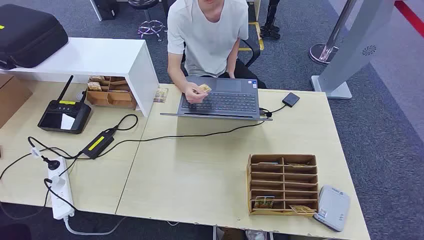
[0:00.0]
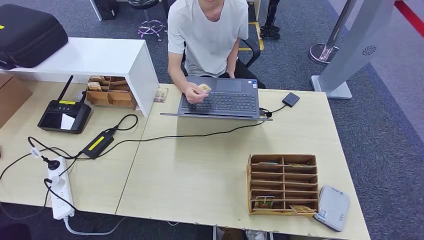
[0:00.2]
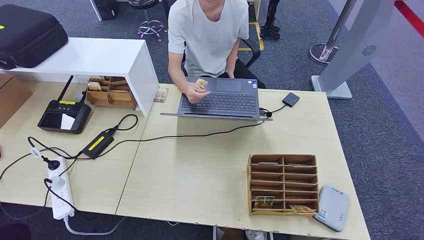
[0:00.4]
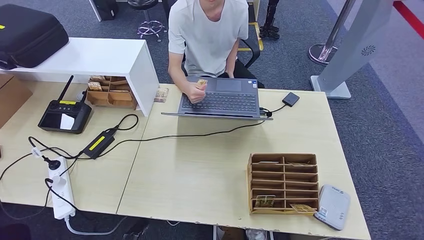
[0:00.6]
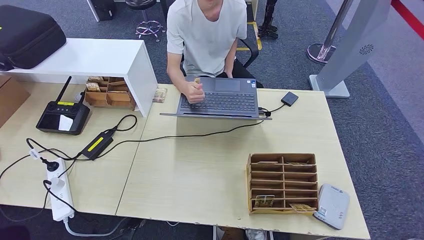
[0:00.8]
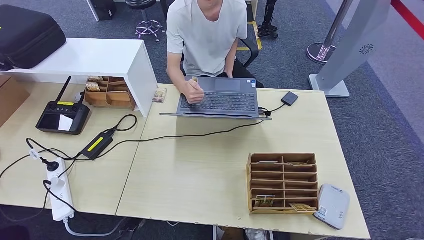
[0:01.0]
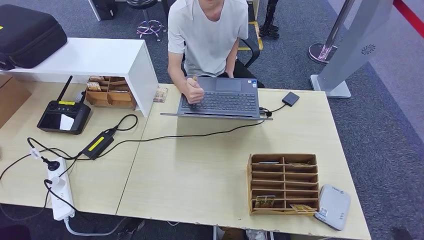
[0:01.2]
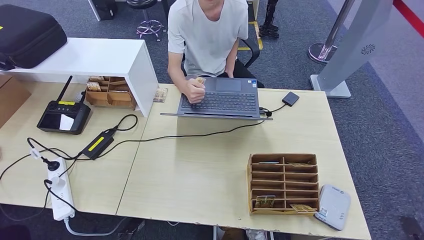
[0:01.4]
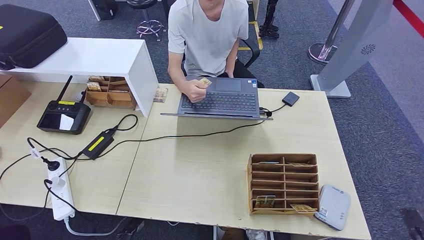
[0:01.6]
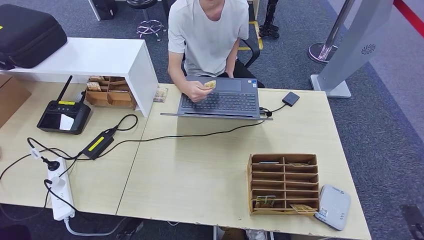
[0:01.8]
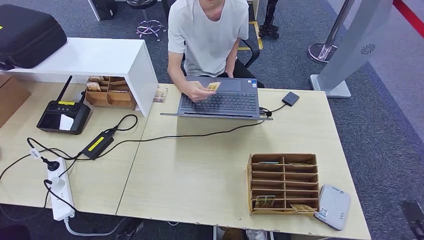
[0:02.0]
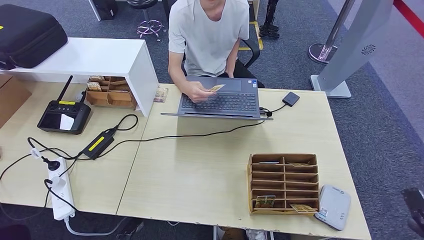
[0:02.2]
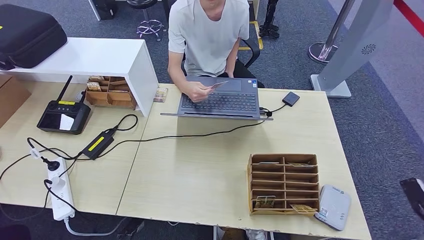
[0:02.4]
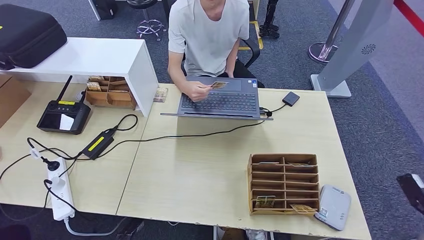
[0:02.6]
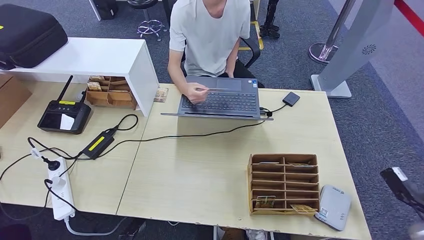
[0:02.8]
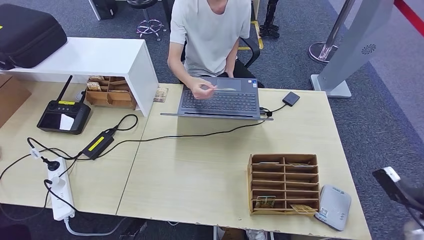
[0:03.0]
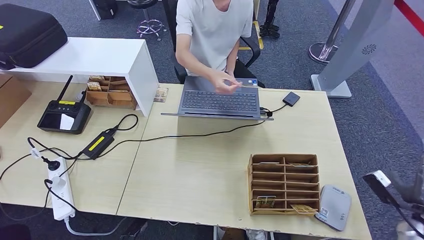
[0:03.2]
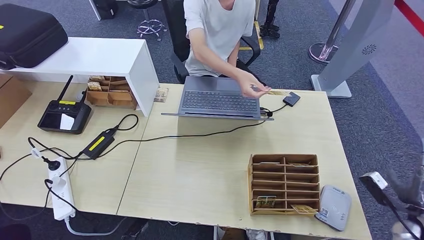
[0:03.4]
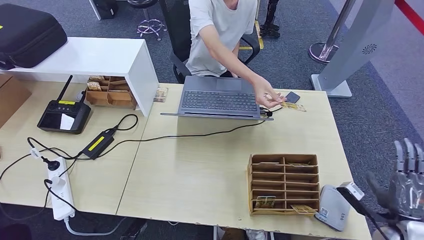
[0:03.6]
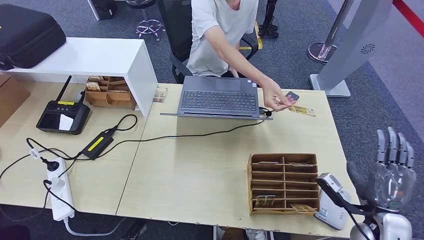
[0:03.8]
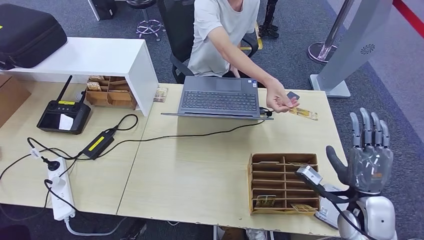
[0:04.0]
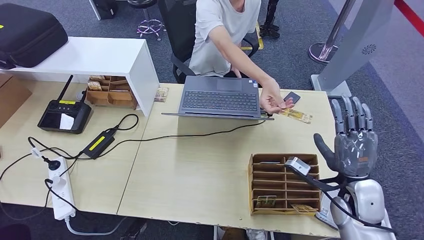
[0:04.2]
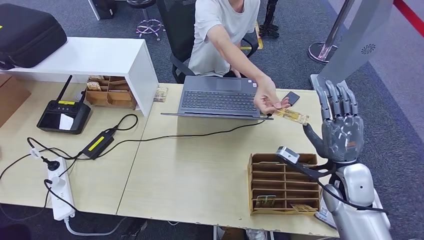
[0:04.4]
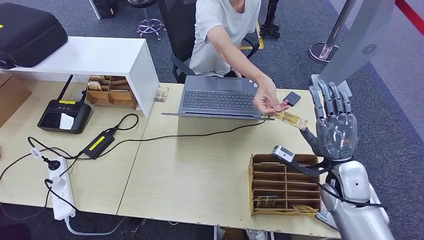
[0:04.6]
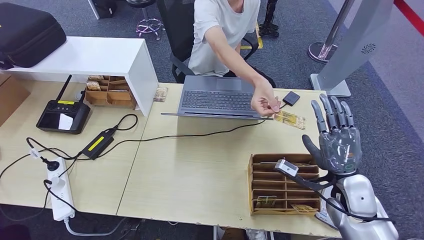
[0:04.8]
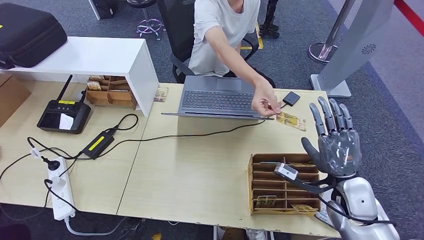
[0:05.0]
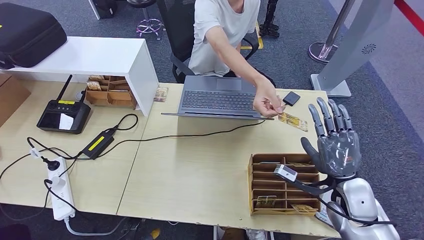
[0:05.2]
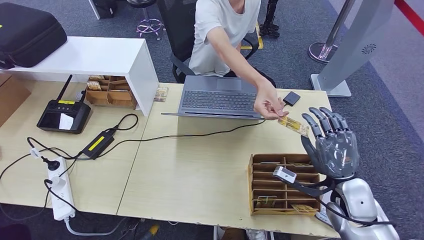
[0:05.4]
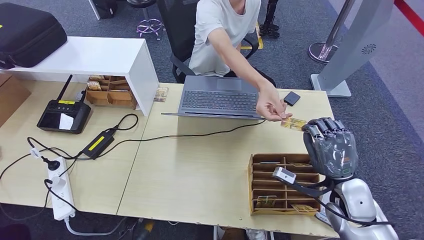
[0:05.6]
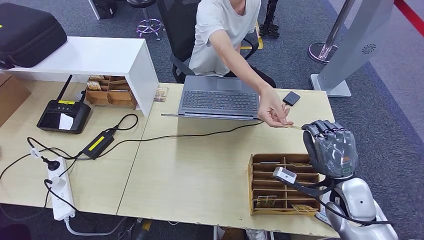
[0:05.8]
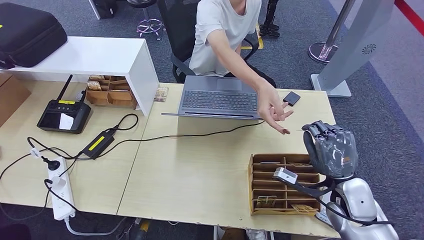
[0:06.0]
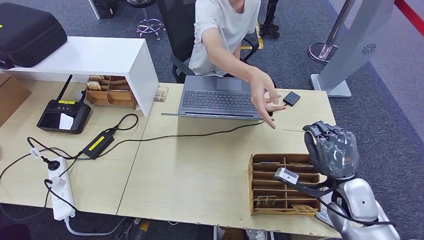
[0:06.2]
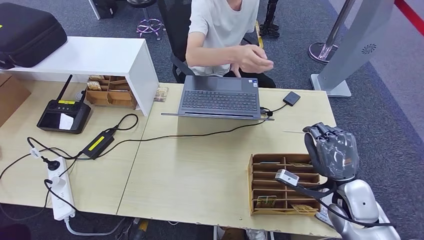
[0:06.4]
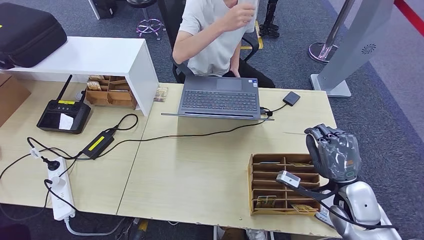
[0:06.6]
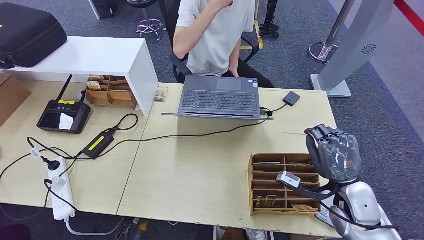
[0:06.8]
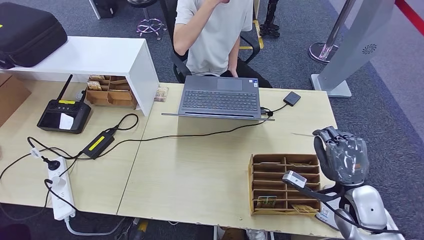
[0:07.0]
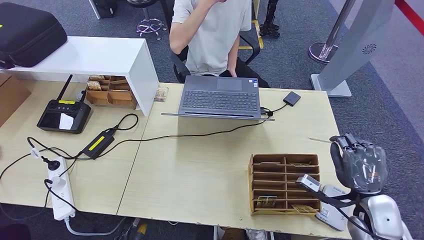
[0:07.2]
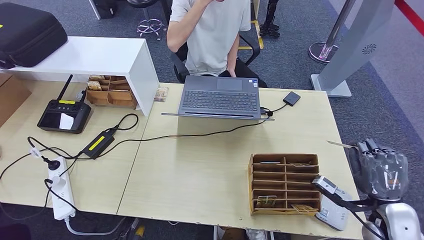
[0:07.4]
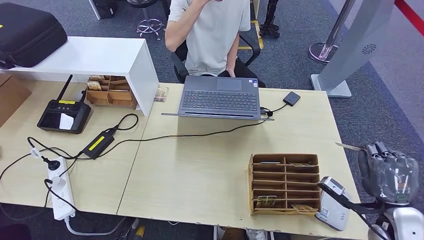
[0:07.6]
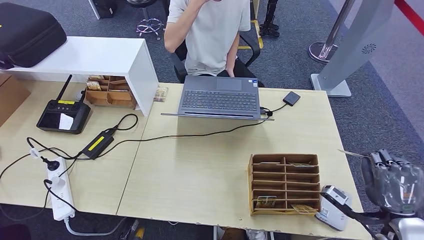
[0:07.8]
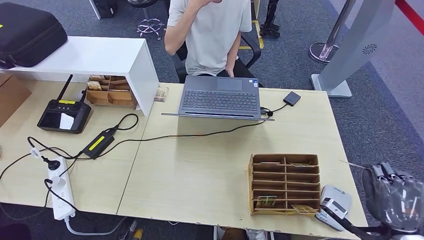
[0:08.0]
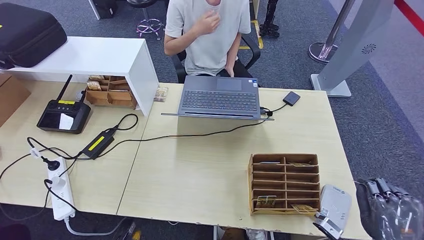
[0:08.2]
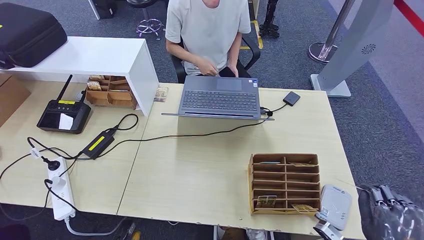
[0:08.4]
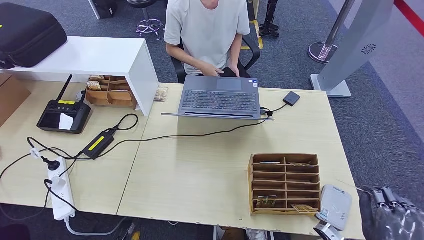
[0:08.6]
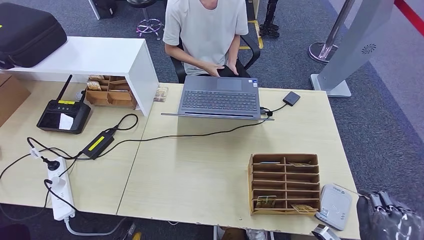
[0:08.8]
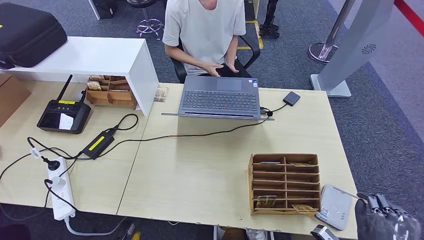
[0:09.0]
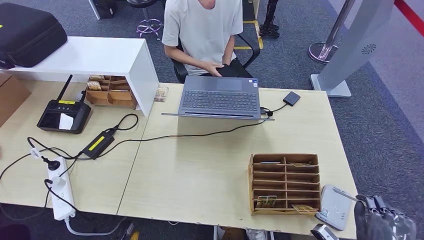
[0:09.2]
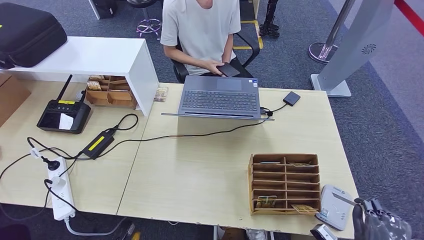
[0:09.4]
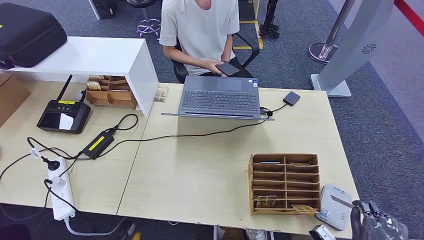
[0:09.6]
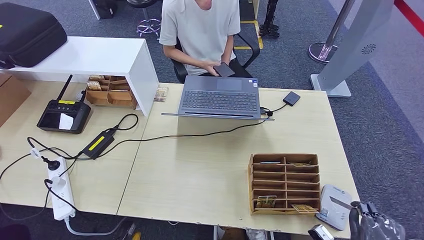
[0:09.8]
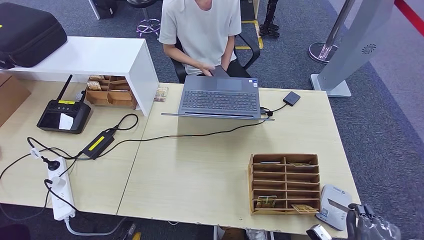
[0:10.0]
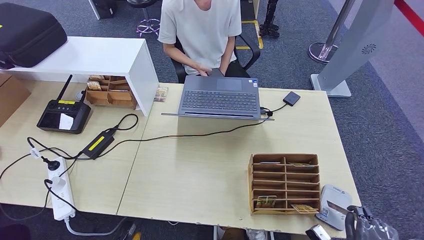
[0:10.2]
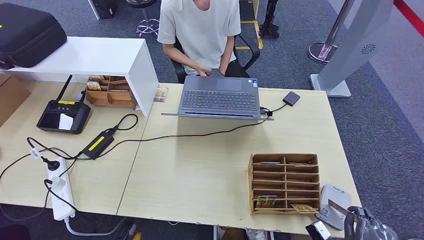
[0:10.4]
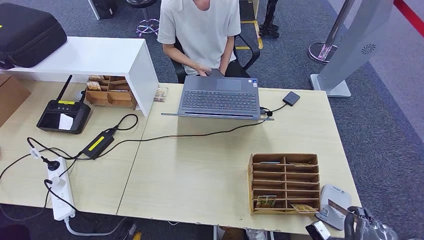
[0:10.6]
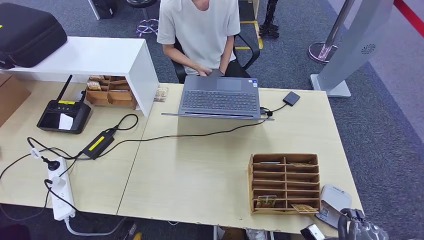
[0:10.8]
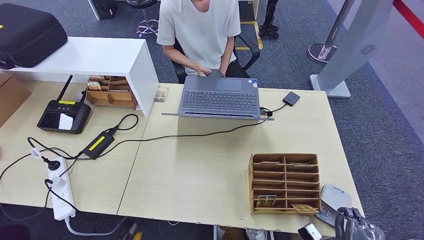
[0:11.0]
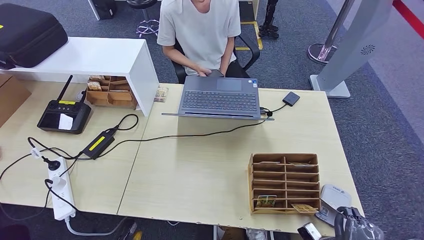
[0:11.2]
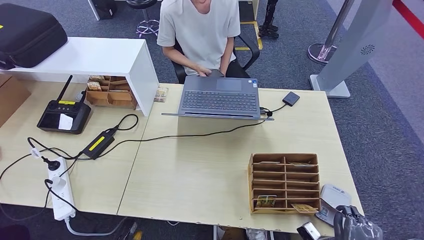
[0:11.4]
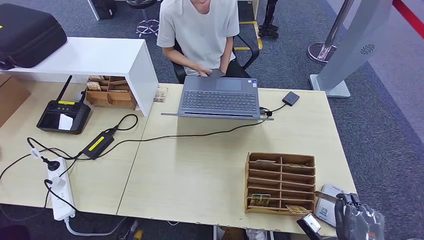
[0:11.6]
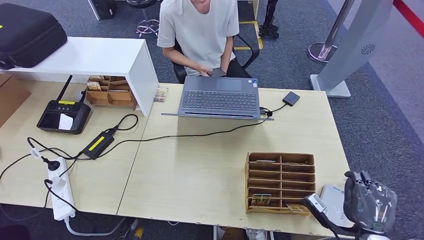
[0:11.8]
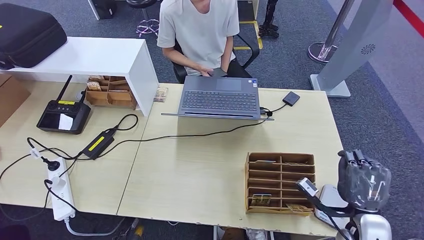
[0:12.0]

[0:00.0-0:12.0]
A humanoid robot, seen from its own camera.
Step, 0:00.0 to 0:06.2: Take the ID card from the person's hand.
Step, 0:06.4 to 0:11.8: Place the ID card on the card reader.
0:01.6 to 0:03.0: The right hand goes some 10 cm forward and upward.
0:03.0 to 0:04.4: The right hand goes some 25 cm to the left and upward.
0:06.0 to 0:07.6: The right hand moves to the right and backward, some 10 cm.
0:07.6 to 0:09.0: The right hand heads backward, covering about 10 cm.
0:09.0 to 0:10.4: The right hand travels downward by about 5 cm.
0:10.4 to 0:12.0: The right hand shifts about 15 cm forward and upward.

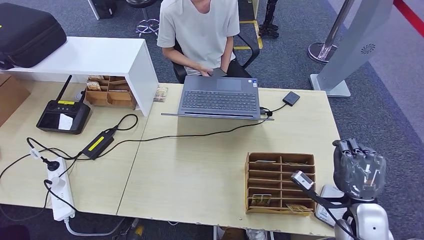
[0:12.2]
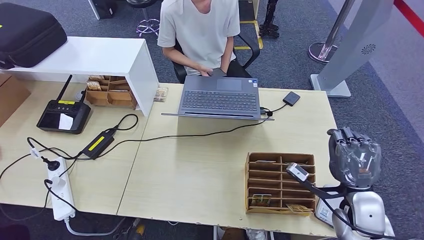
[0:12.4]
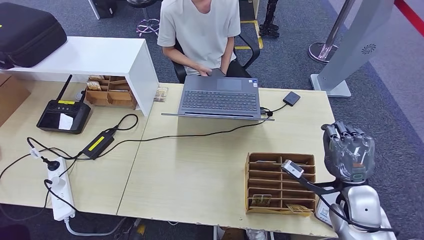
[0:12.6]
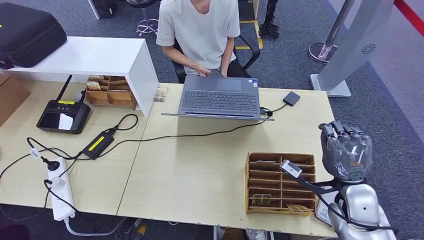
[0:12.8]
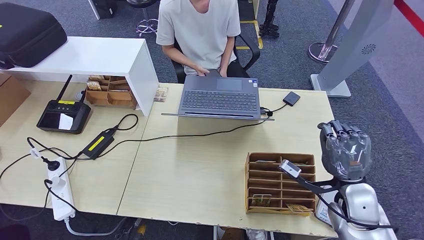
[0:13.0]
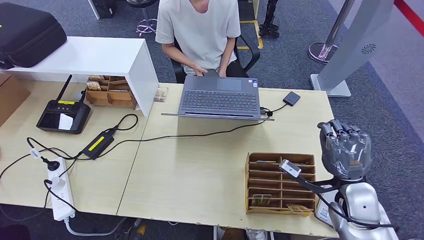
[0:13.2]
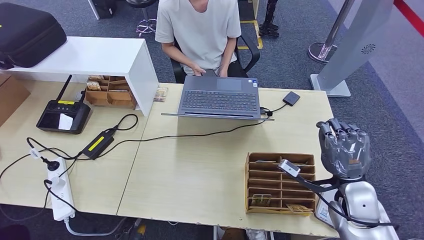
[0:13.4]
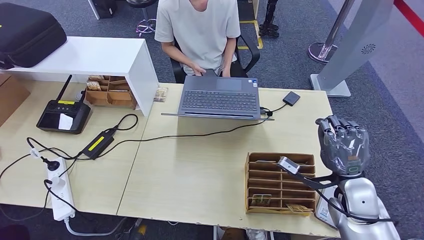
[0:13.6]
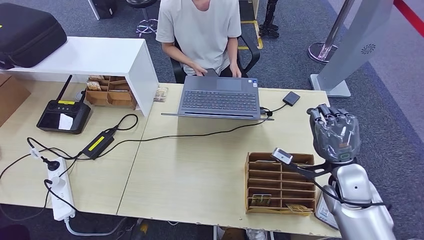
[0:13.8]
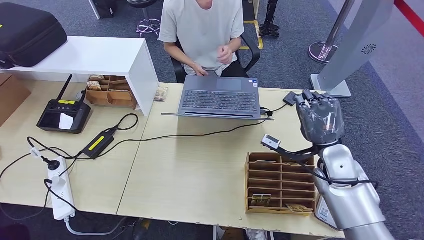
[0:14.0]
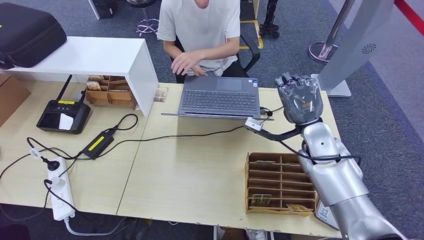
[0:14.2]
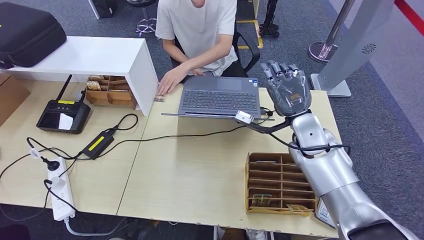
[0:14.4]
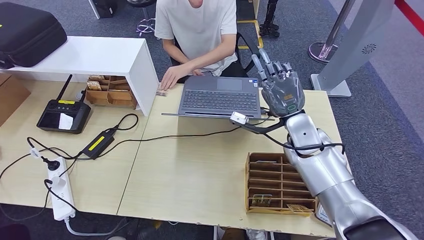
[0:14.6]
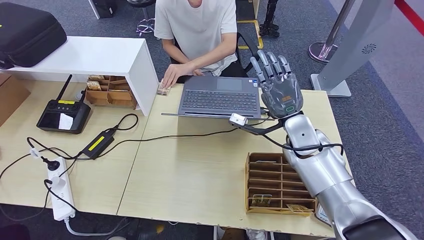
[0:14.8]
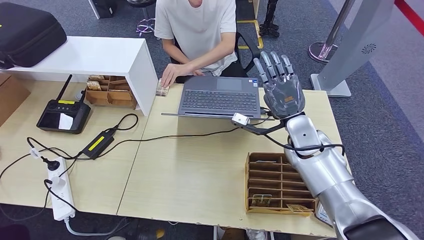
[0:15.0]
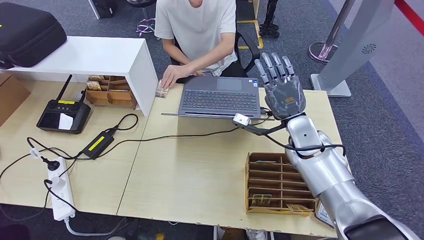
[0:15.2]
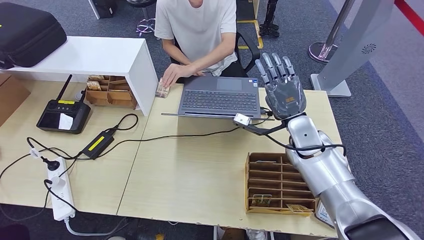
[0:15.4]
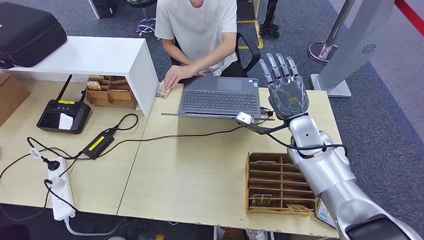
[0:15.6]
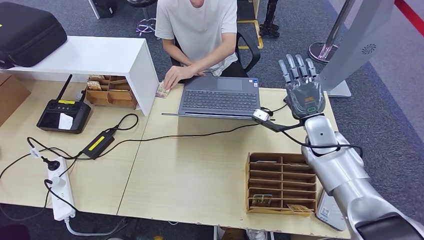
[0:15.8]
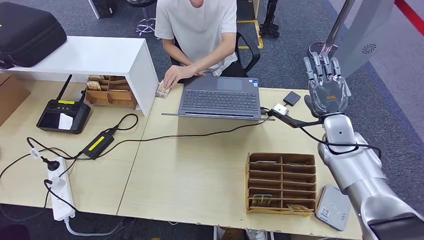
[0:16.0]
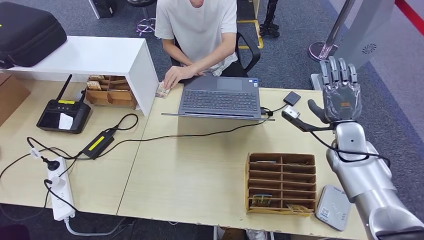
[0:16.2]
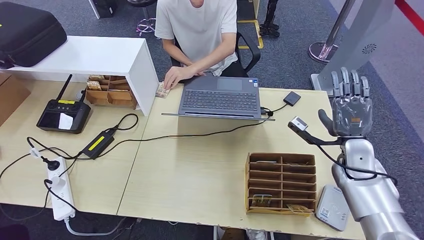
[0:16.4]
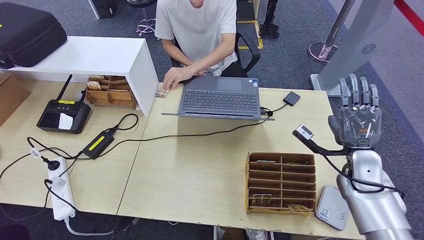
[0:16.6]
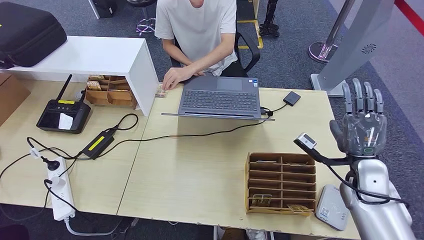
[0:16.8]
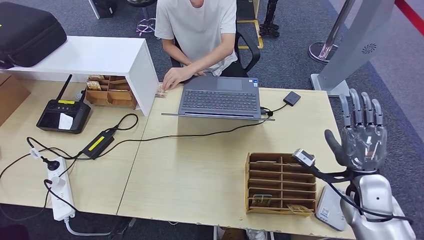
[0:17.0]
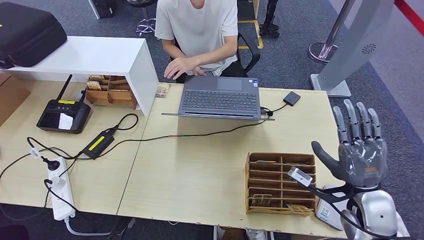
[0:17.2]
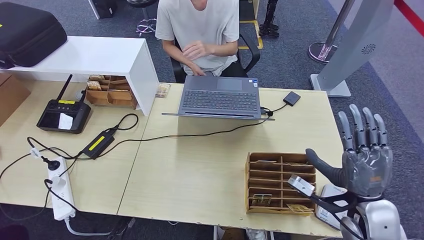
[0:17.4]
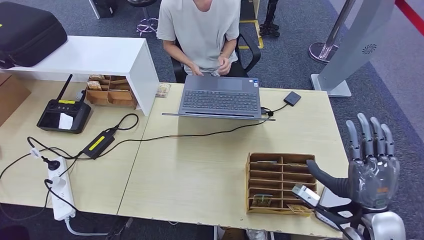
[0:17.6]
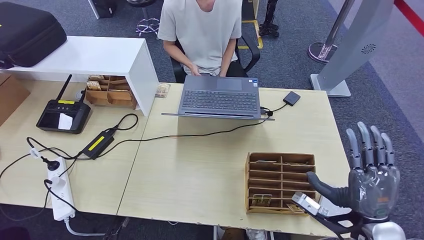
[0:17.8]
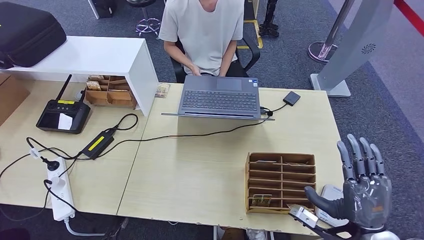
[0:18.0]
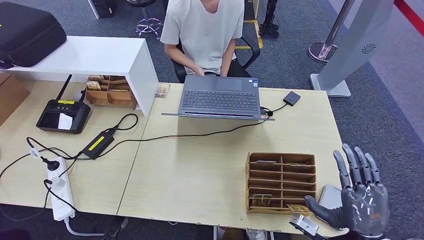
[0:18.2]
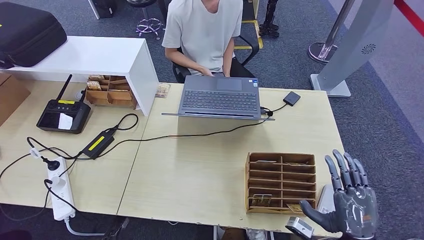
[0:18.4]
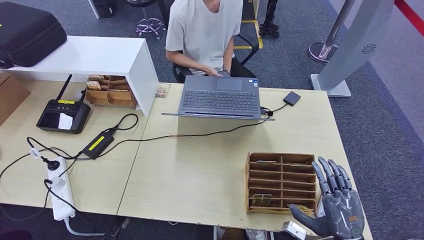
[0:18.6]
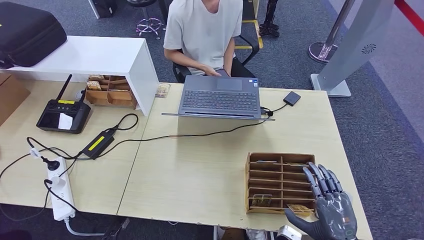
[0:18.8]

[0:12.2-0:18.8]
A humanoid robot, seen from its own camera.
Step, 0:12.2 to 0:17.2: Hand the ID card to the person.
0:12.2 to 0:13.8: The right hand shifts some 5 cm forward.
0:13.8 to 0:15.4: The right hand heads to the left and forward, covering approximately 15 cm.
0:15.4 to 0:17.2: The right hand heads backward and to the right, covering roughly 20 cm. The left hand heads backward, covering some 5 cm.
0:17.2 to 0:18.8: The right hand heads backward and downward, covering approximately 15 cm.
